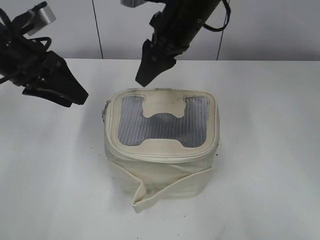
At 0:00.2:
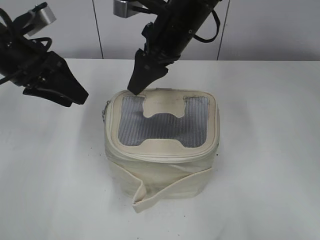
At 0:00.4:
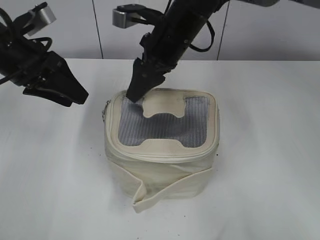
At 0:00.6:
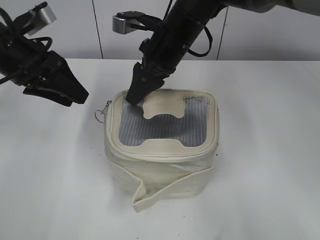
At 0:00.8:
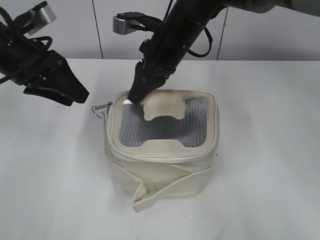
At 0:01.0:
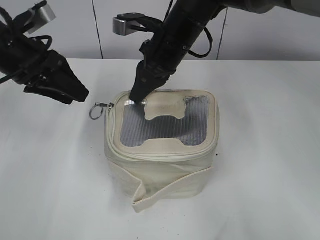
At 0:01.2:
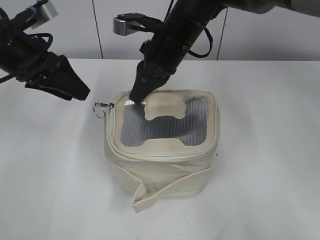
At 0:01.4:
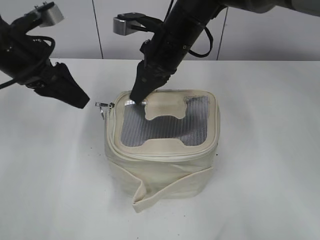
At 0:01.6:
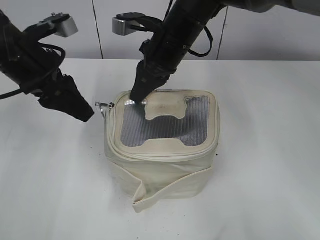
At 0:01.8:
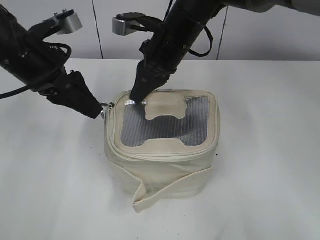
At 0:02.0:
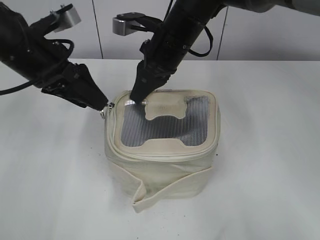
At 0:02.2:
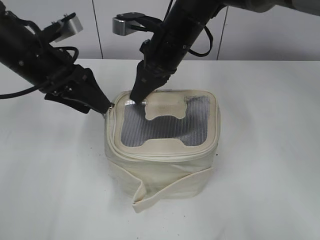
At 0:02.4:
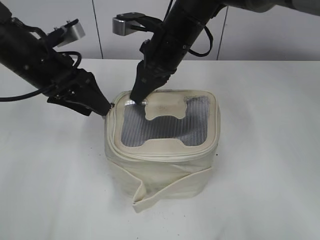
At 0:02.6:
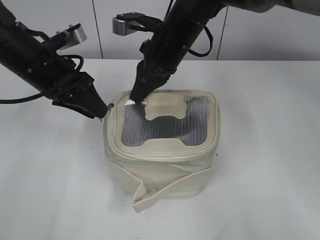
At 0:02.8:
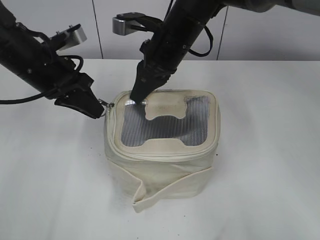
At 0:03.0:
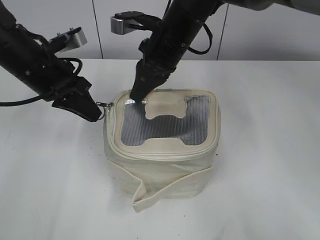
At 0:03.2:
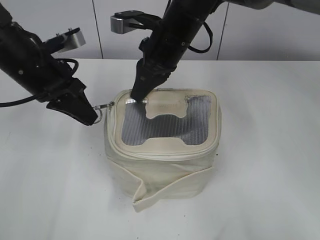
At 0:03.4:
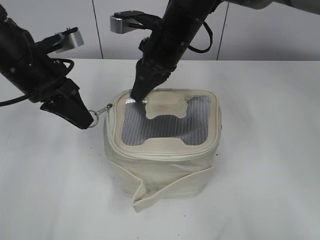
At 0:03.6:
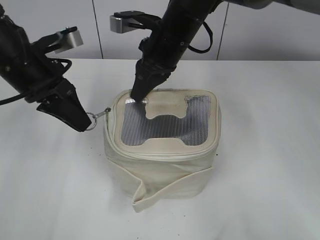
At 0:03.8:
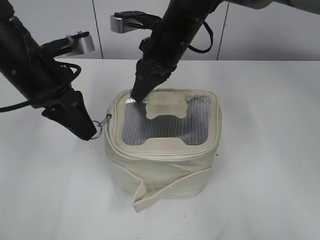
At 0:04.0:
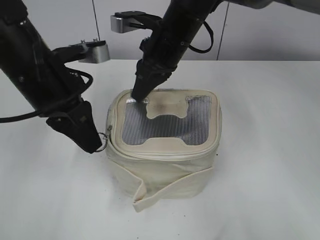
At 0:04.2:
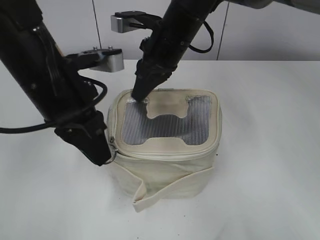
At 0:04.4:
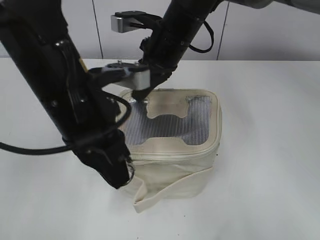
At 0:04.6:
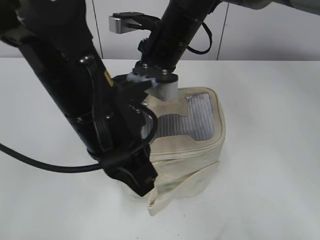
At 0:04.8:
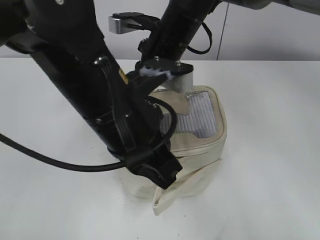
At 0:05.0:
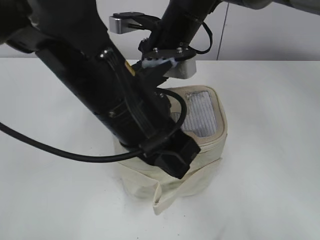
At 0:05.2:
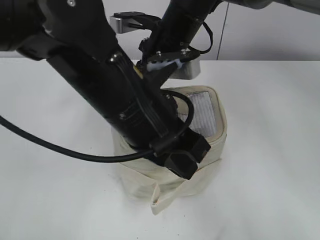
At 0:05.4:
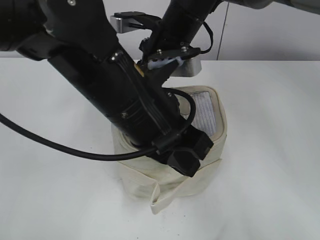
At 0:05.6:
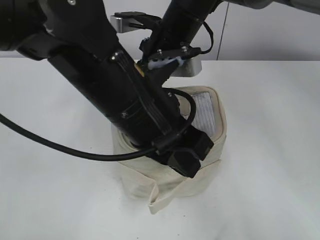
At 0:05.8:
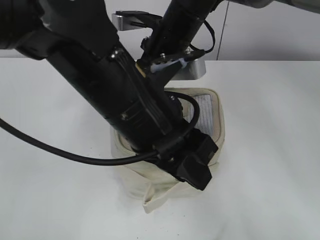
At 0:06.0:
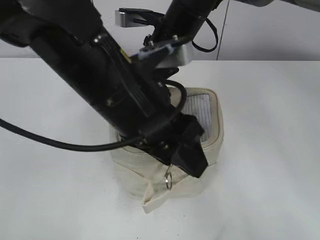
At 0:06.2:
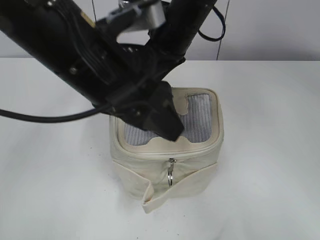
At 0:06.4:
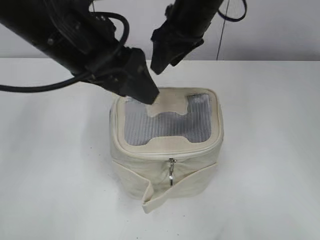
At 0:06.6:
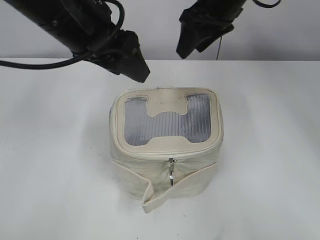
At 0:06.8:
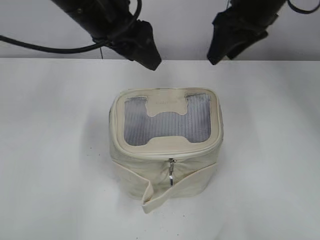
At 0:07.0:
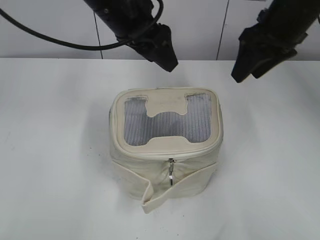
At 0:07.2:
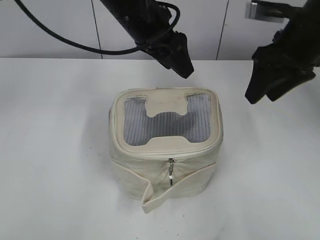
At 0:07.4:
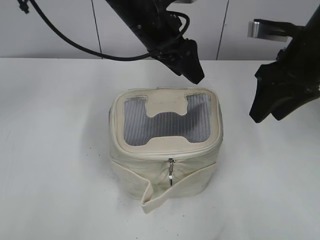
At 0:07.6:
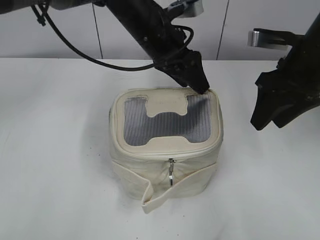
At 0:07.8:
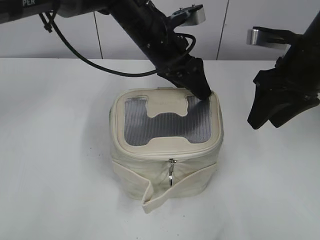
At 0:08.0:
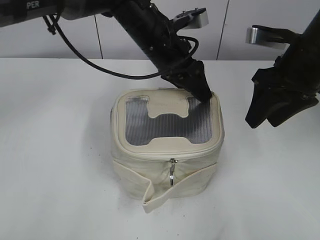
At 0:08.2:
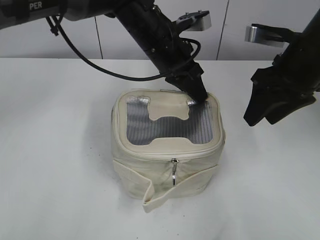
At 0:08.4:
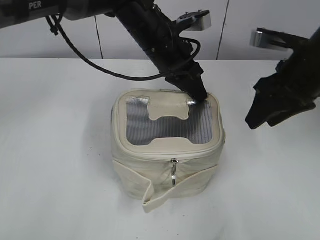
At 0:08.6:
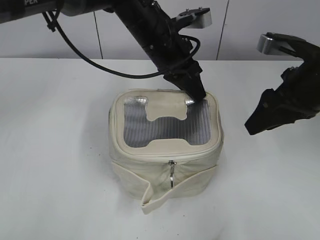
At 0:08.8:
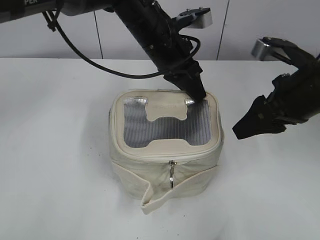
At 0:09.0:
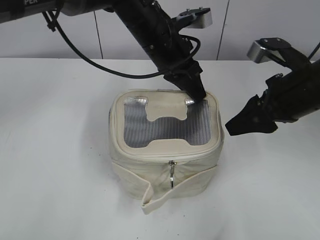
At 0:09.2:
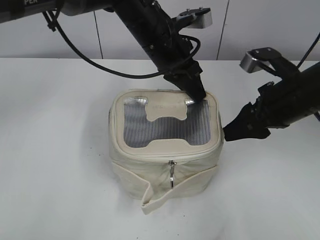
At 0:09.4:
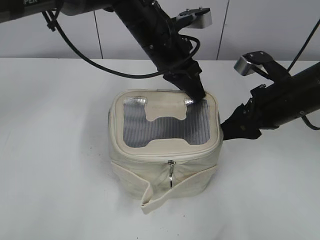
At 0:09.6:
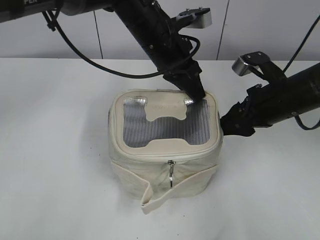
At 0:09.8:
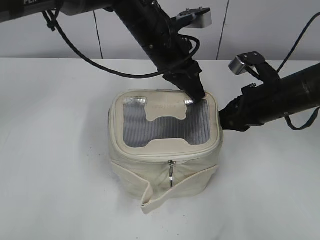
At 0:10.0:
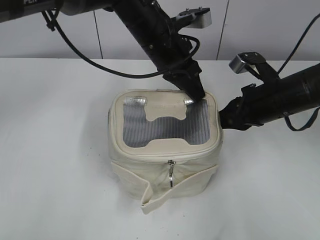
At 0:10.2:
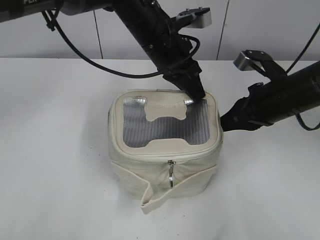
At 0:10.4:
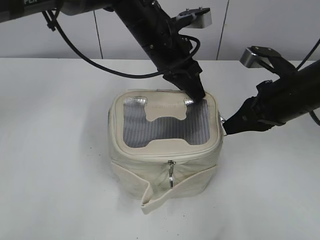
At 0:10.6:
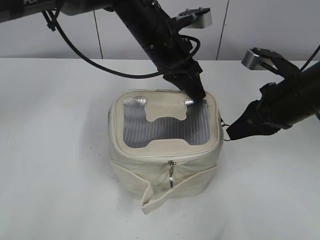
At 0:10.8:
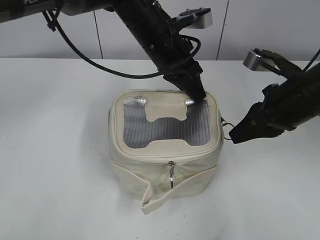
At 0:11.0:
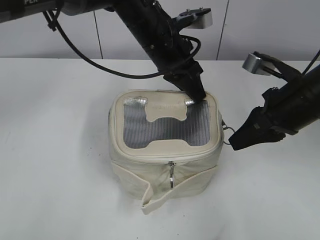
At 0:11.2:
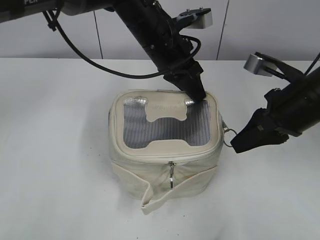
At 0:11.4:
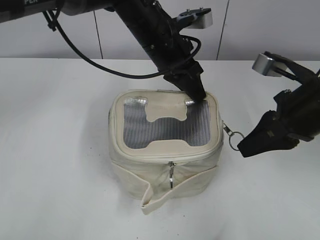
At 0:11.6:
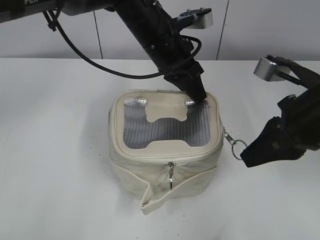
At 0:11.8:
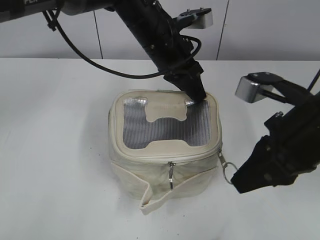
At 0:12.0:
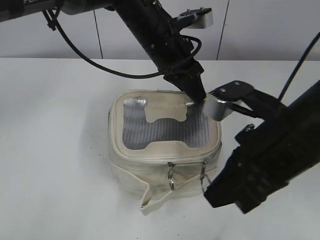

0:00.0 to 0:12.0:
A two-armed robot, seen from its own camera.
Step, 0:00.0 to 0:05.6: Zip up the bag with your left hand.
Step, 0:05.8 to 0:06.2: Hold the bag with your right hand.
0:00.0 to 0:01.6: The right gripper heads downward, covering some 5 cm, and closes its fingers.
0:01.6 to 0:03.0: The left gripper closes.
0:03.0 to 0:04.4: The left gripper moves backward and to the right, roughly 15 cm.
0:04.4 to 0:06.0: The left gripper shifts about 5 cm to the right, and opens its fingers. Meanwhile the right gripper opens.
0:06.0 to 0:07.6: The left gripper goes some 20 cm forward. Meanwhile the right gripper travels to the right by roughly 20 cm.
0:07.6 to 0:09.0: The left gripper closes its fingers.
0:09.0 to 0:10.4: The right gripper closes up.
0:10.4 to 0:12.0: The right gripper travels backward and to the left by some 10 cm.

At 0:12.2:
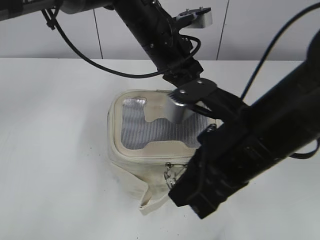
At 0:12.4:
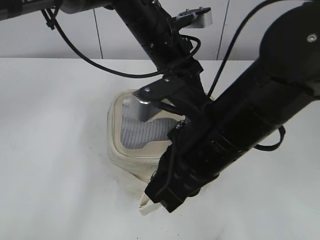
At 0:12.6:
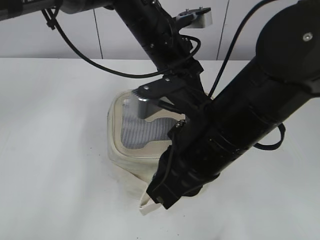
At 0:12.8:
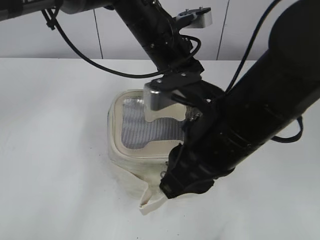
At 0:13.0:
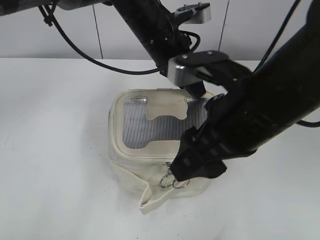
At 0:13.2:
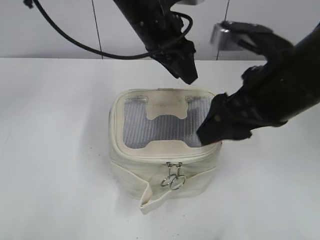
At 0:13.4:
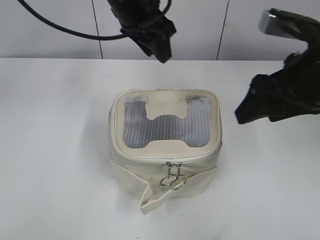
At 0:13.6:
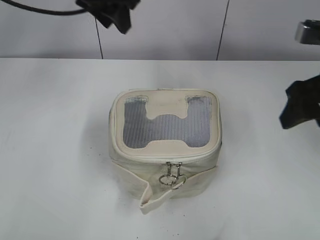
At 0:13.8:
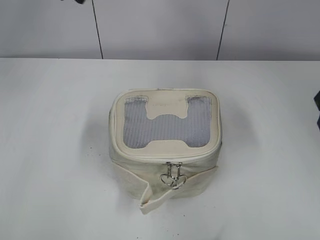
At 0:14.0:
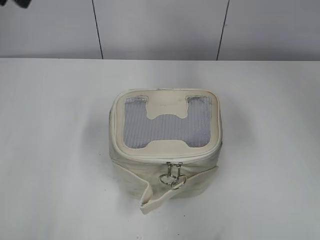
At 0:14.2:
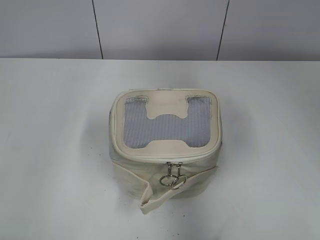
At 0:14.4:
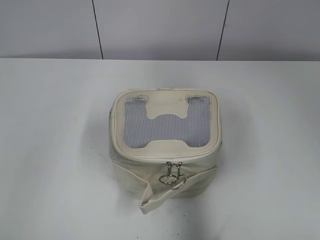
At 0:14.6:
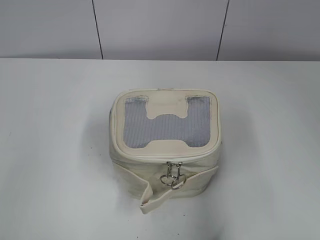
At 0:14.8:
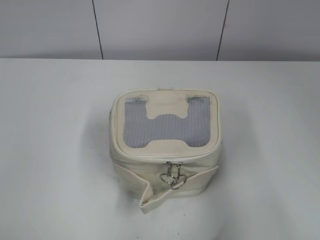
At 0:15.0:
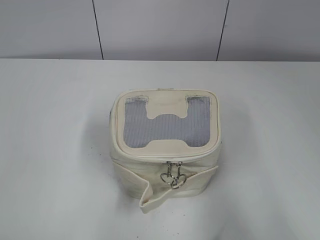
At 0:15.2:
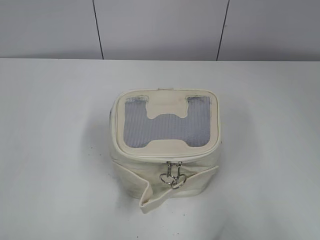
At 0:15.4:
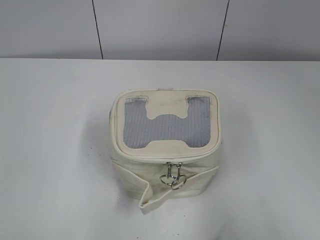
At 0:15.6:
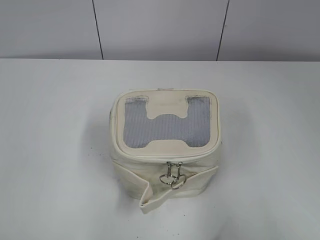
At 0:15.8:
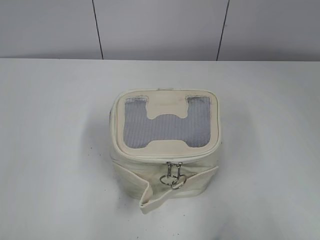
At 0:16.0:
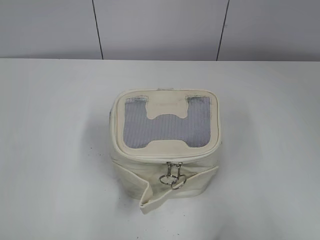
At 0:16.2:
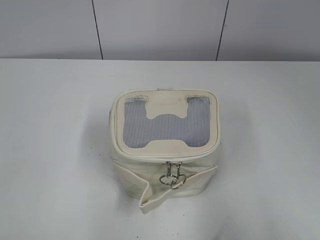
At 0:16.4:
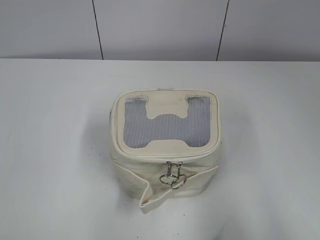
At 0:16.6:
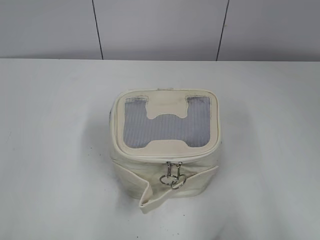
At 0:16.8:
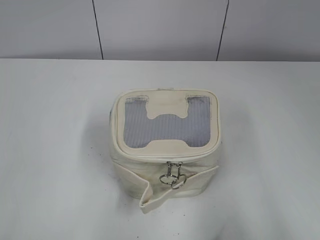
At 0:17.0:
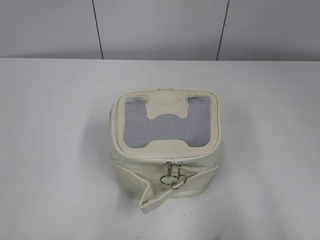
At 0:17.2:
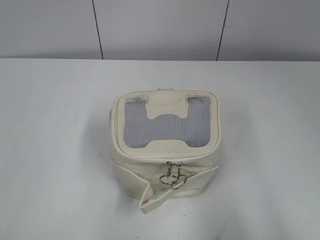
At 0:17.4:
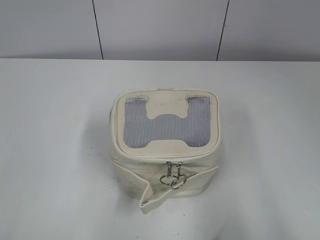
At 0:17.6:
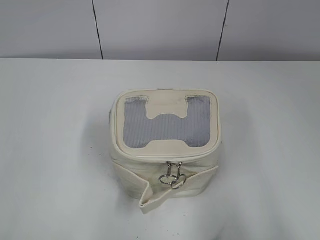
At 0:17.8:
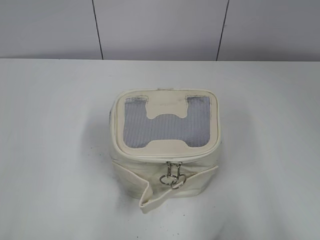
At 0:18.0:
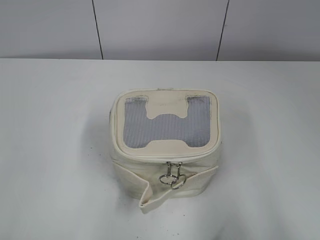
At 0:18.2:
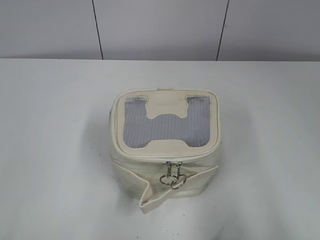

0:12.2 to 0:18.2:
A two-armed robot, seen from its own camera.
0:12.2 to 0:13.8: The left gripper heads to the left and upward, covering approximately 20 cm, and opens. Meanwhile the right gripper is displaced to the right and forward by approximately 15 cm, and opens up.
0:13.8 to 0:15.2: The right gripper travels backward by approximately 25 cm; the left gripper shifts approximately 40 cm backward and to the left.
0:16.6 to 0:18.2: The two grippers keep their place.
